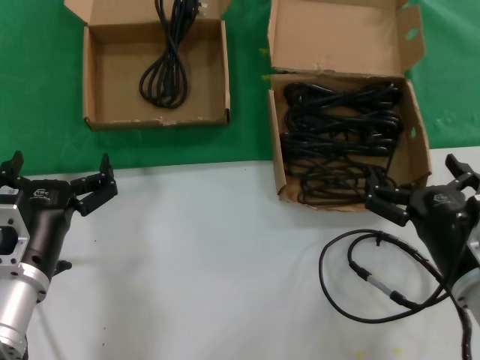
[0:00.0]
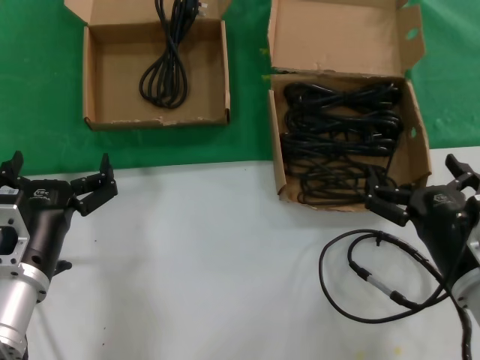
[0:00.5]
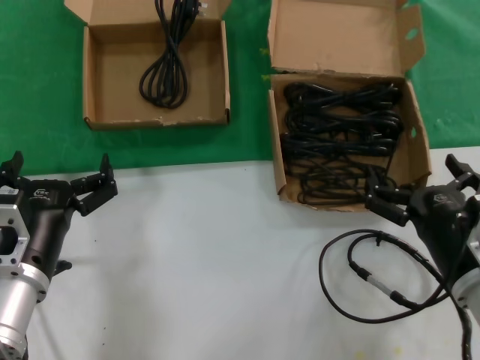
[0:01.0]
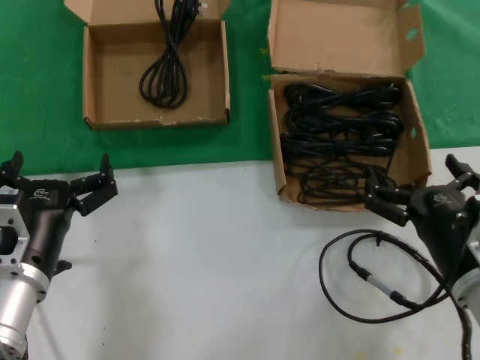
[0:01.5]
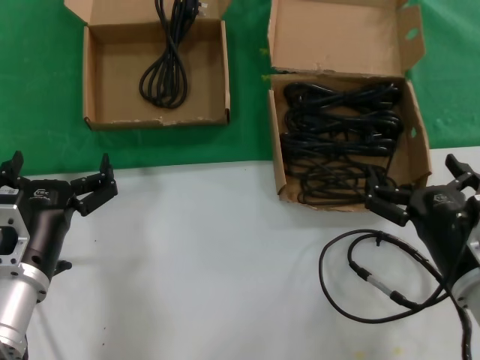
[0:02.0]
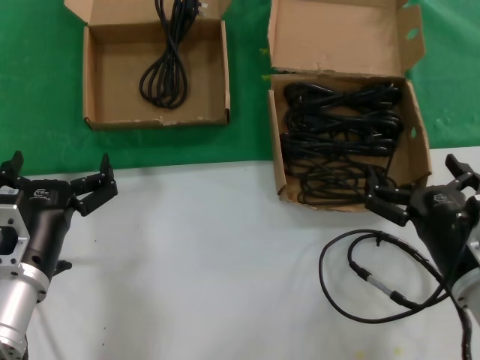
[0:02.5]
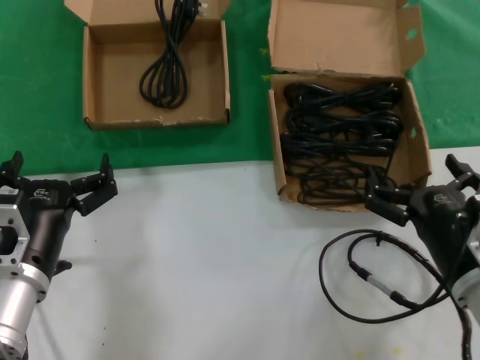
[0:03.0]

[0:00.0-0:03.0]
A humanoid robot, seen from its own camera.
Task of the whole recording: take the parts from the box containing them and put them into an empty box.
0:00.0 to 0:03.0: The two hands keep their place.

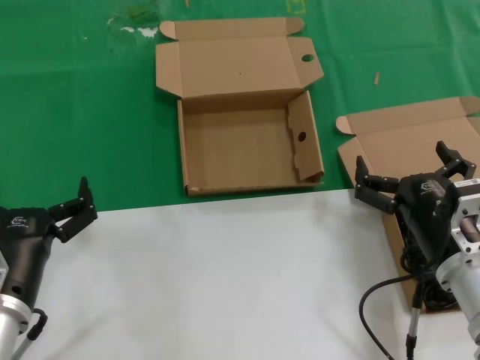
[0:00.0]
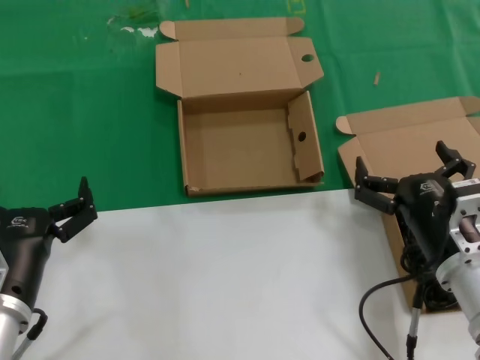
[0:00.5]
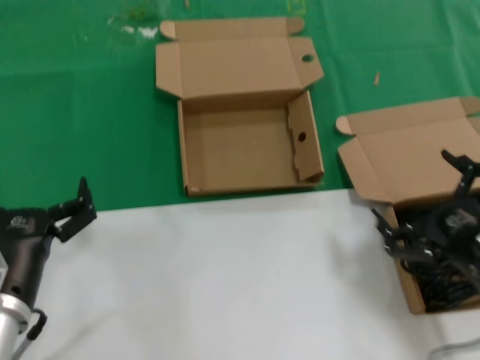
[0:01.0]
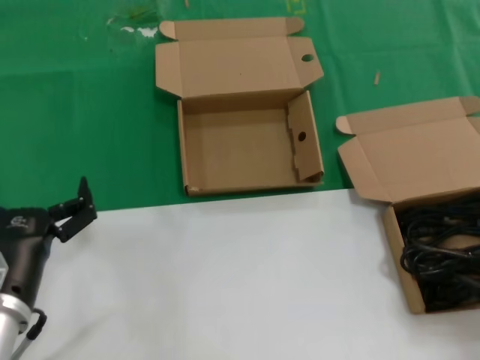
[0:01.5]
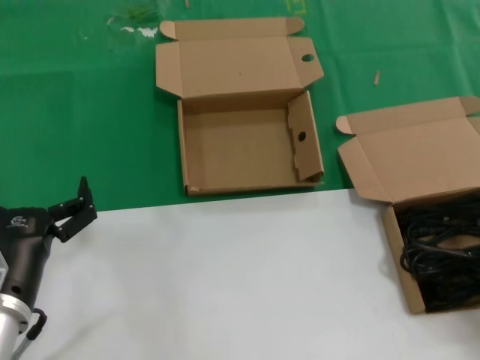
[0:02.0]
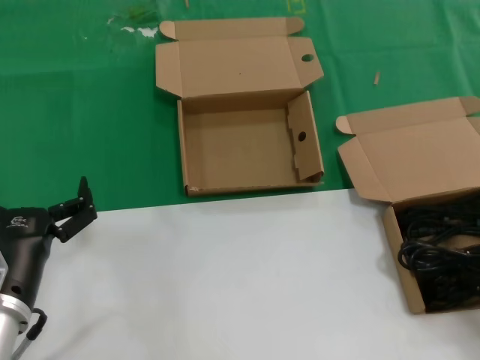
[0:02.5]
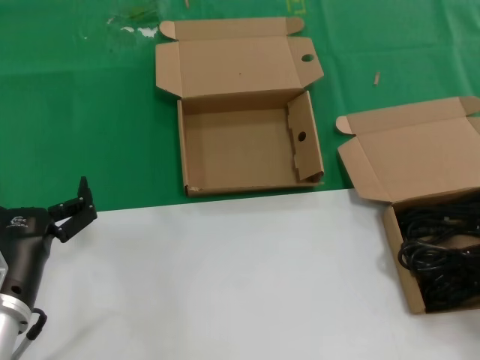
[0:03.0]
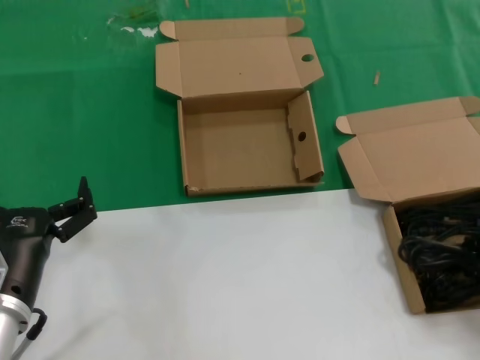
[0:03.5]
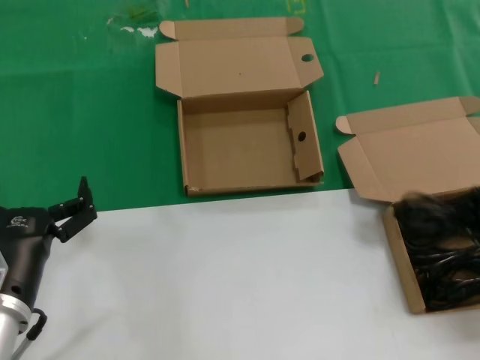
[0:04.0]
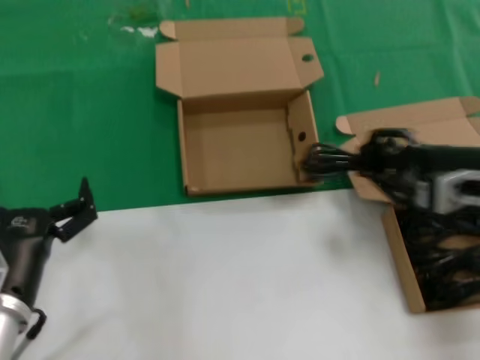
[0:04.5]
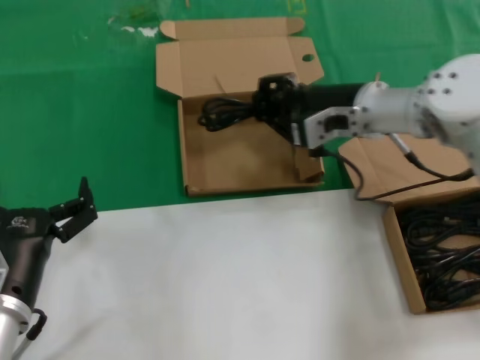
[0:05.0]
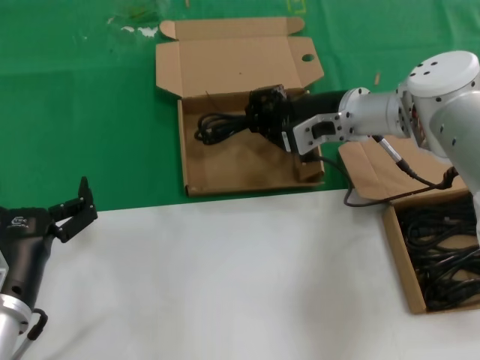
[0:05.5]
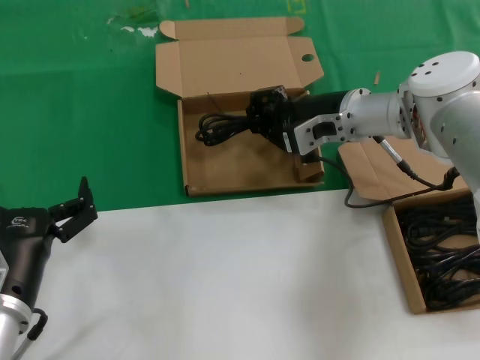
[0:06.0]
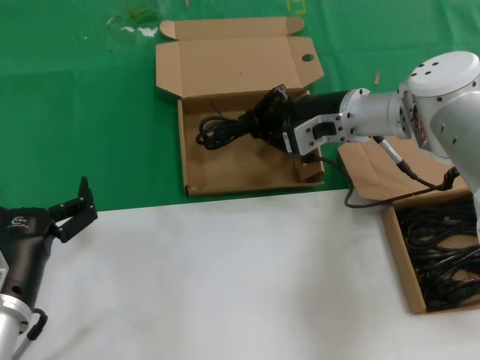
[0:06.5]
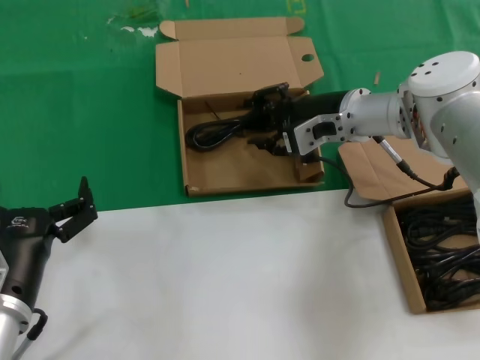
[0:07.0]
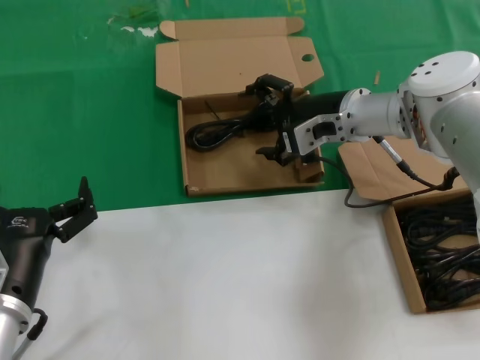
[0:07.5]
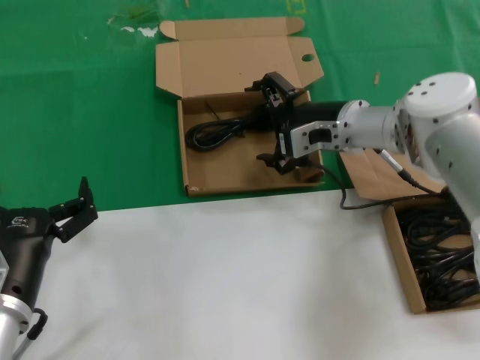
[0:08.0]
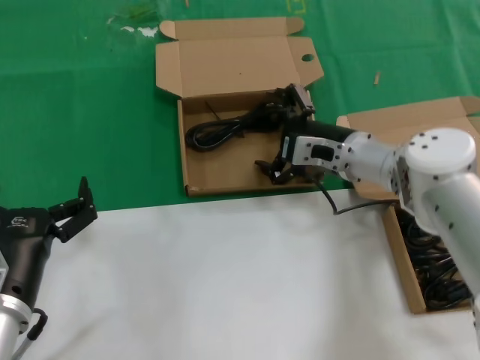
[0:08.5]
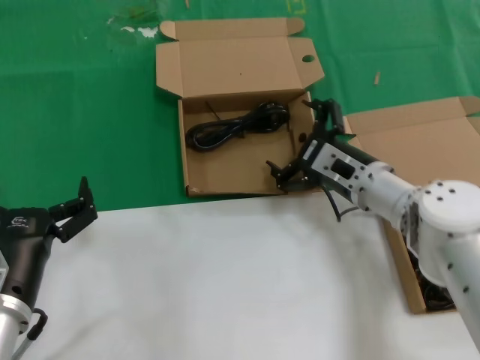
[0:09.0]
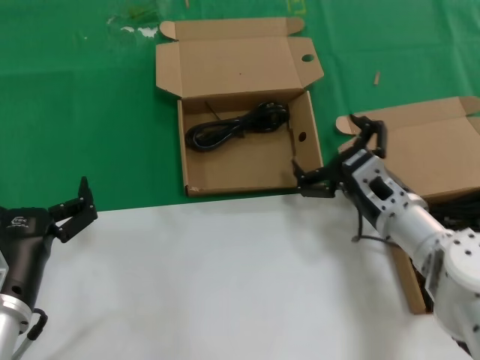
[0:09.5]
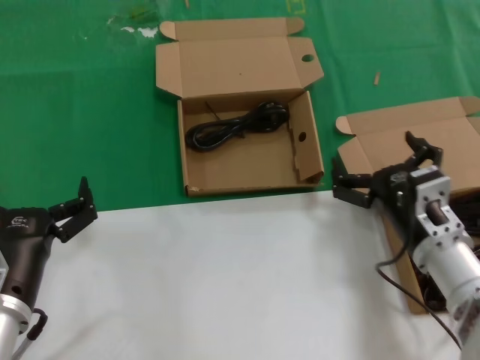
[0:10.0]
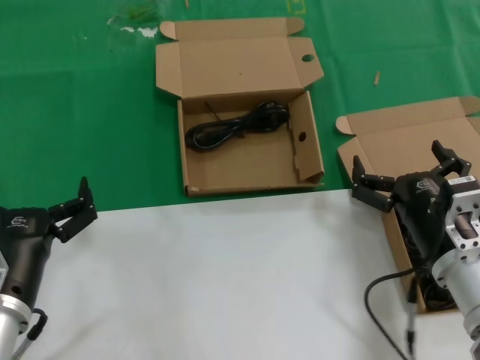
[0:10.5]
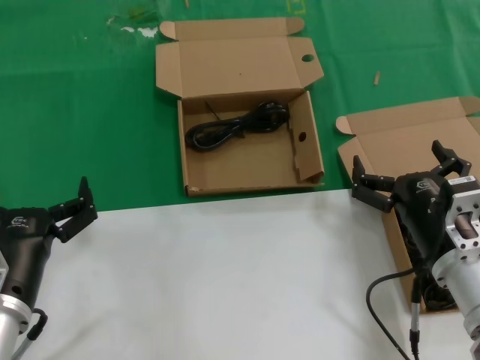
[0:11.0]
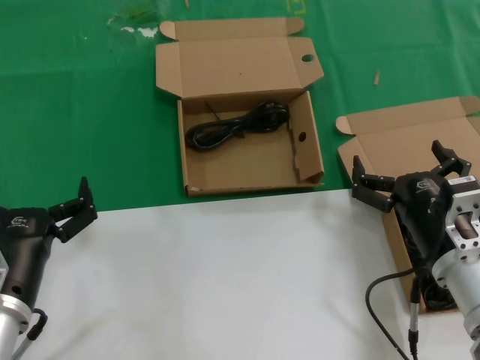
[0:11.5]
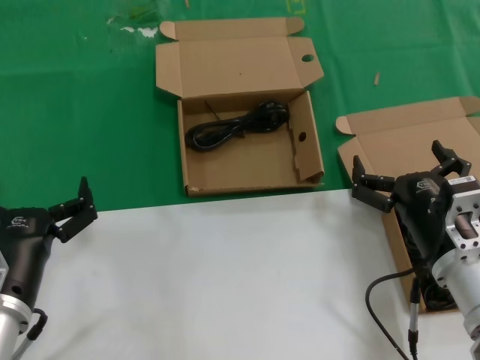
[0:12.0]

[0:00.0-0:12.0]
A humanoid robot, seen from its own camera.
Task of the whole recording: take the parts from the box containing them and put them into an empty box.
Step, 0:00.0 to 0:03.5: Grasp the data cable.
Step, 0:04.0 to 0:07.5: Place the data cable in the another box.
0:00.0 to 0:02.0: The right hand travels to the right by about 20 cm.
0:02.0 to 0:04.0: The hands move only a little.
0:04.0 to 0:06.0: The right hand goes approximately 35 cm forward and to the left.
0:06.0 to 0:08.0: The hands stay close to where they were, moving slightly.
0:08.0 to 0:10.0: The right hand heads backward and downward, covering roughly 20 cm.
0:10.0 to 0:12.0: The hands stay close to where they were, moving slightly.

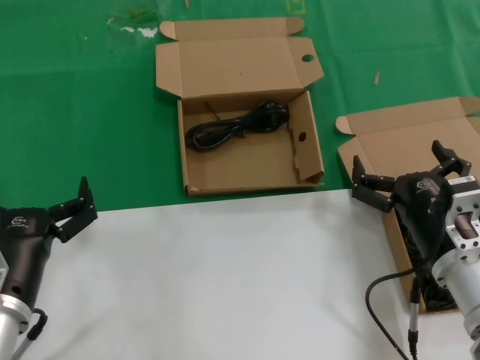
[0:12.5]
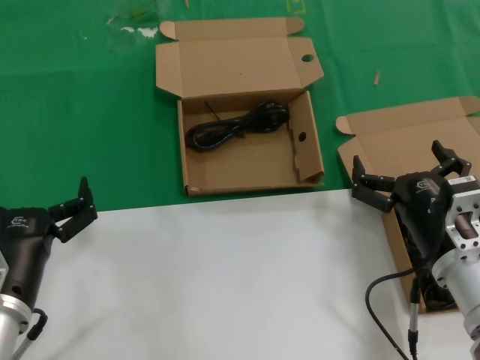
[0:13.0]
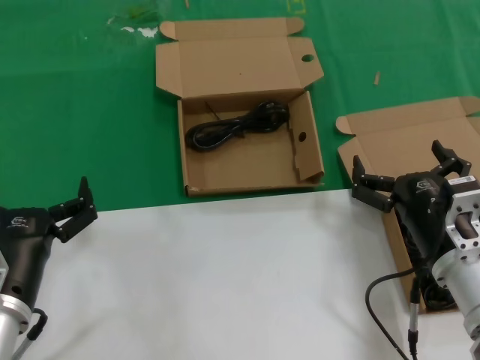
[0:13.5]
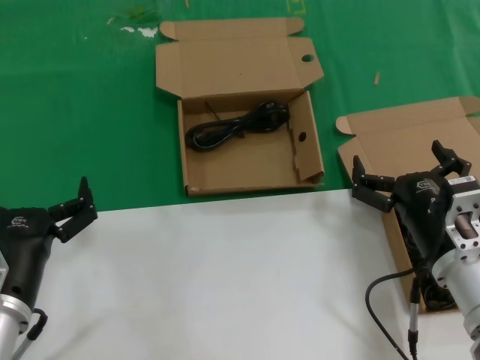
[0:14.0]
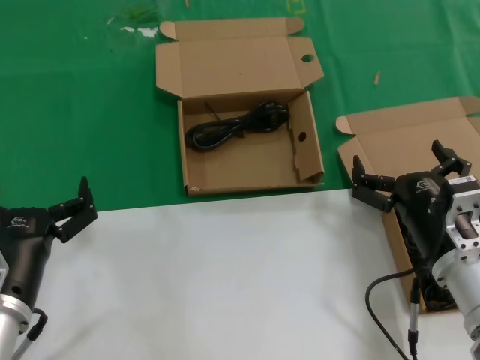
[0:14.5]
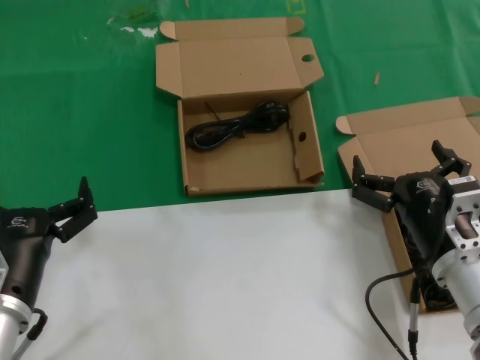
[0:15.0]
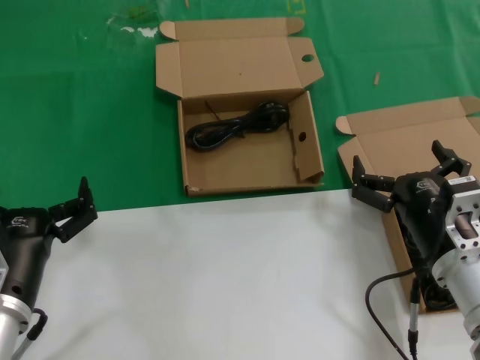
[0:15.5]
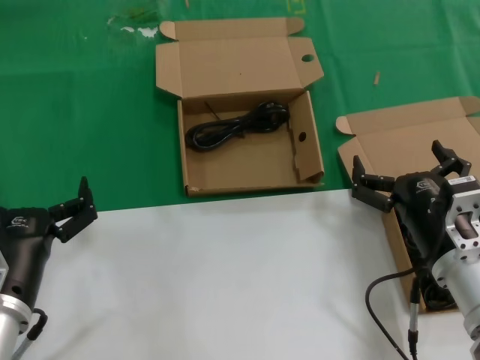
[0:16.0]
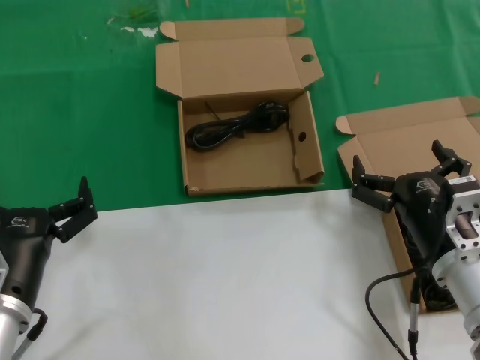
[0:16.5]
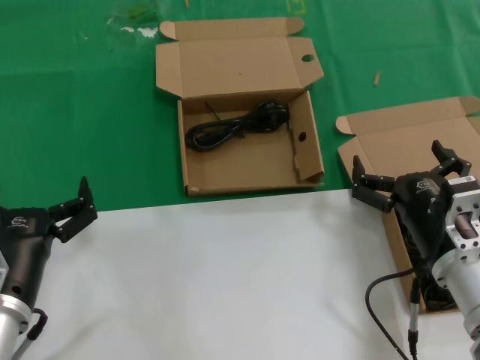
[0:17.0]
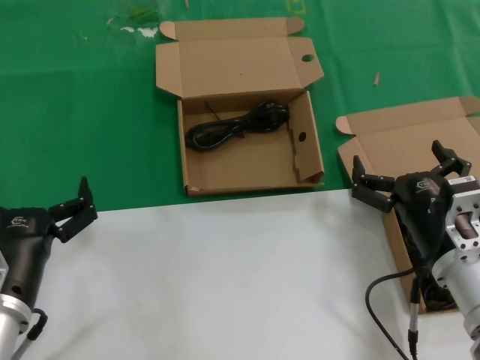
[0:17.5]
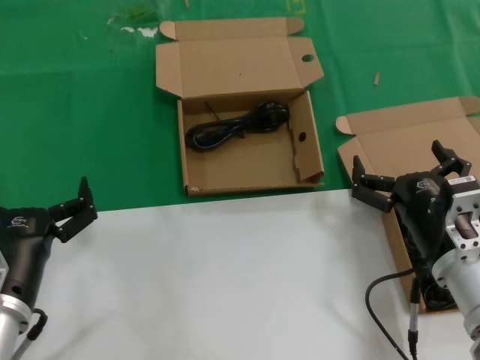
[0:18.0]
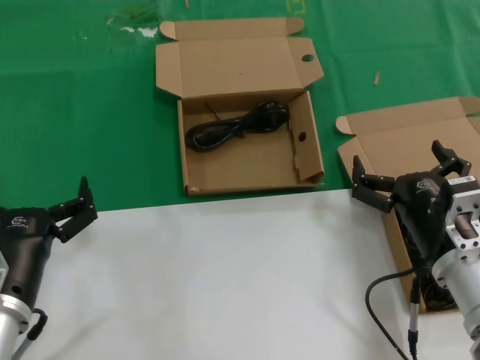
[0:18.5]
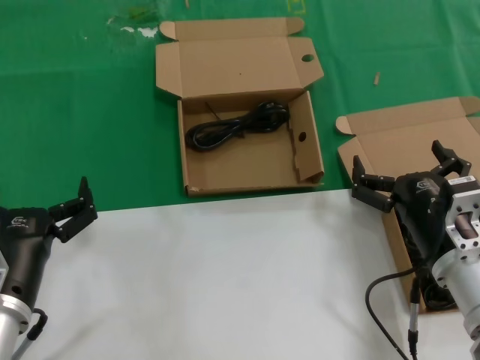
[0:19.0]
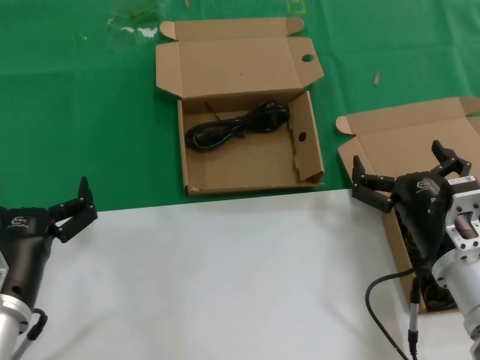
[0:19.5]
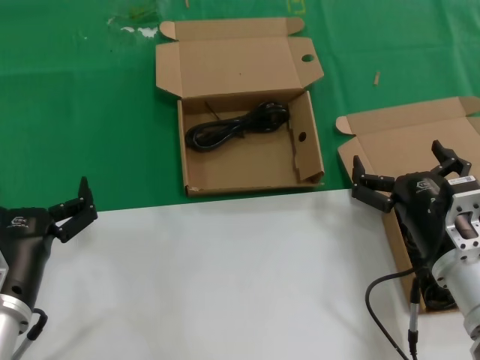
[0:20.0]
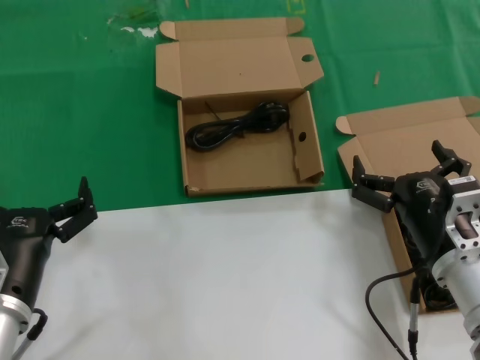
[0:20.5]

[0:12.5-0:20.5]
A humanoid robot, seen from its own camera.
Task of the whole recording: take the parts from the box containing them and put them into an empty box.
0:12.5 to 0:20.5: Neither hand changes place.
